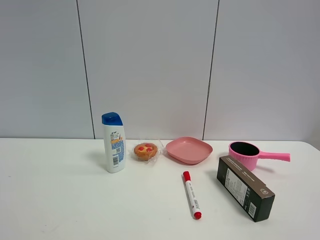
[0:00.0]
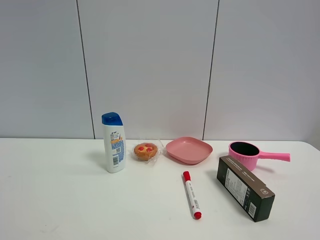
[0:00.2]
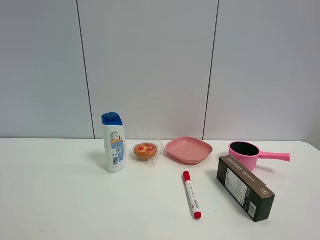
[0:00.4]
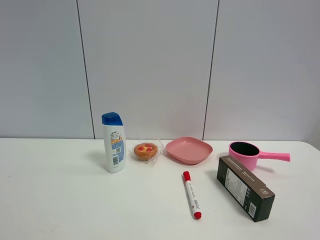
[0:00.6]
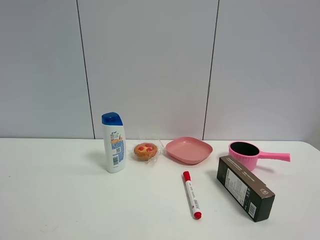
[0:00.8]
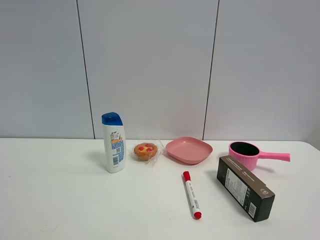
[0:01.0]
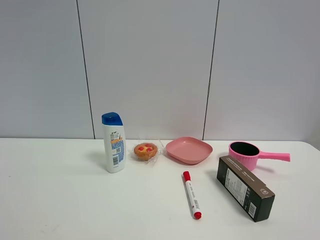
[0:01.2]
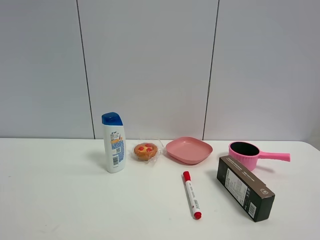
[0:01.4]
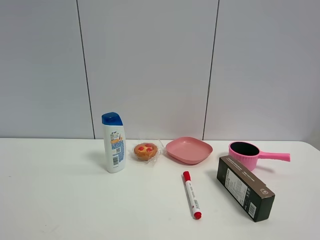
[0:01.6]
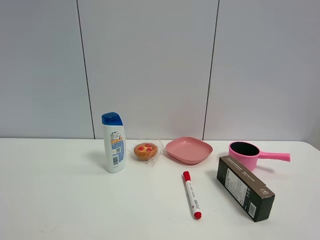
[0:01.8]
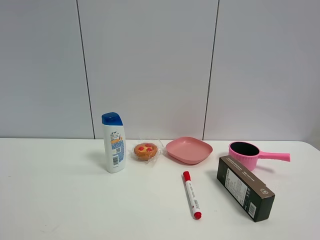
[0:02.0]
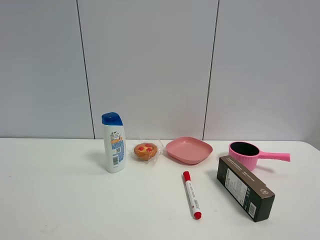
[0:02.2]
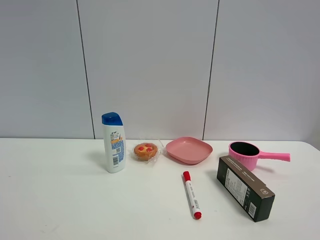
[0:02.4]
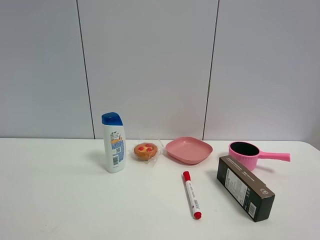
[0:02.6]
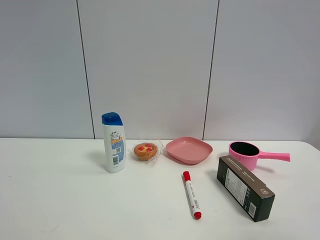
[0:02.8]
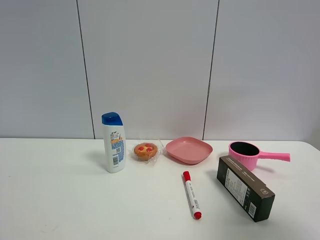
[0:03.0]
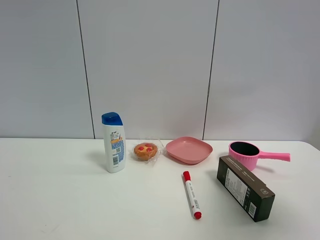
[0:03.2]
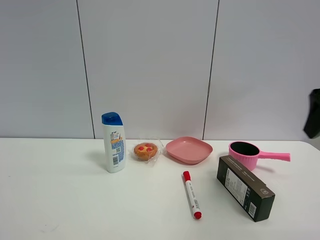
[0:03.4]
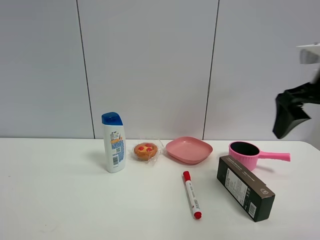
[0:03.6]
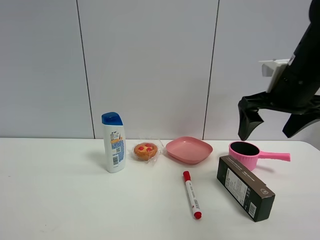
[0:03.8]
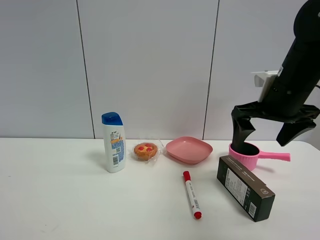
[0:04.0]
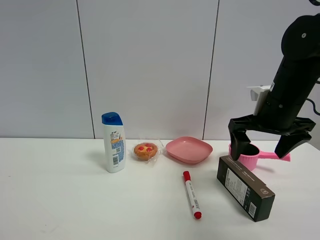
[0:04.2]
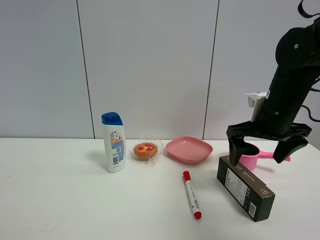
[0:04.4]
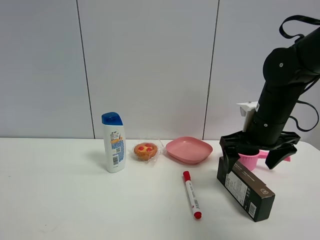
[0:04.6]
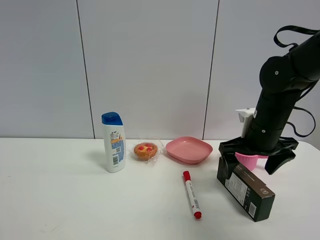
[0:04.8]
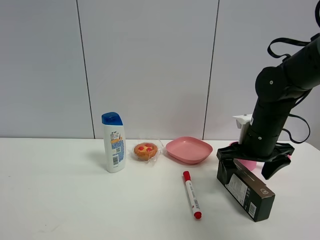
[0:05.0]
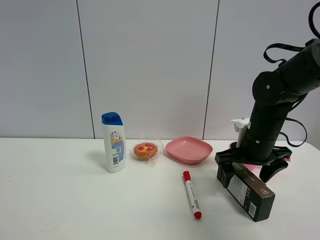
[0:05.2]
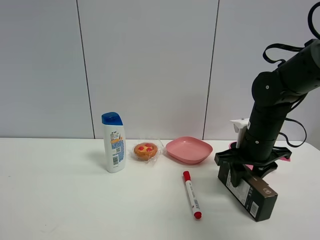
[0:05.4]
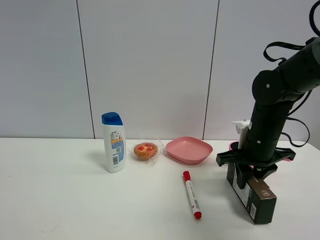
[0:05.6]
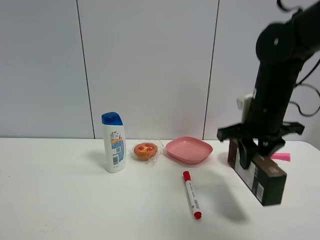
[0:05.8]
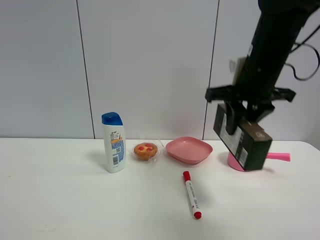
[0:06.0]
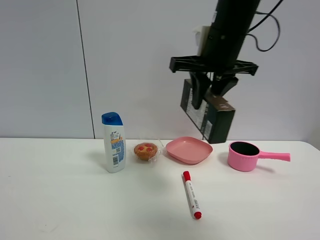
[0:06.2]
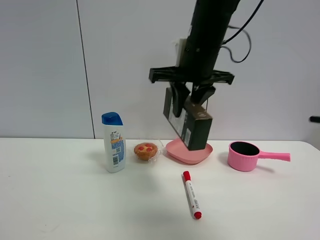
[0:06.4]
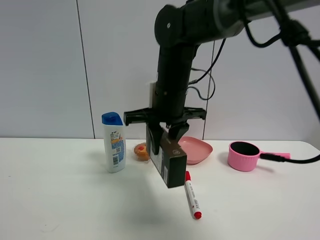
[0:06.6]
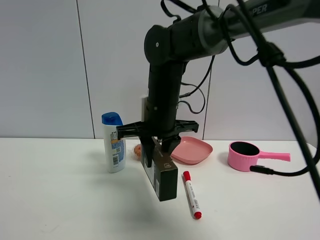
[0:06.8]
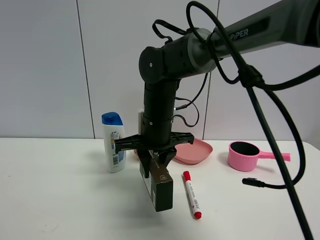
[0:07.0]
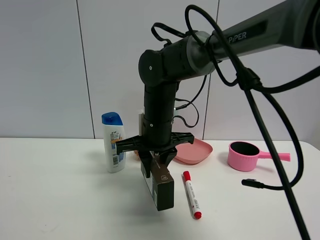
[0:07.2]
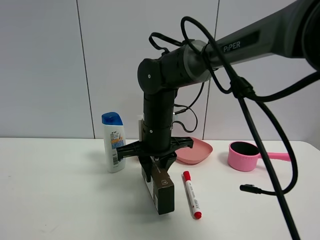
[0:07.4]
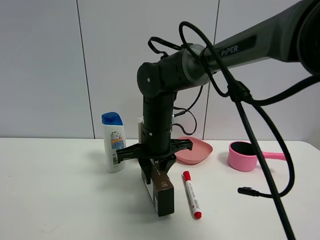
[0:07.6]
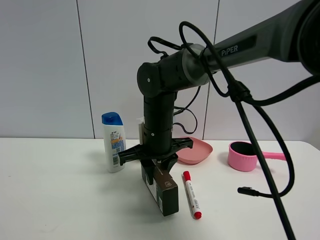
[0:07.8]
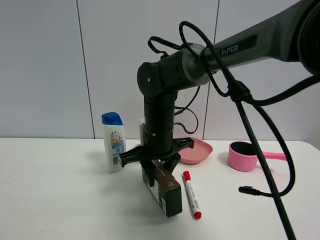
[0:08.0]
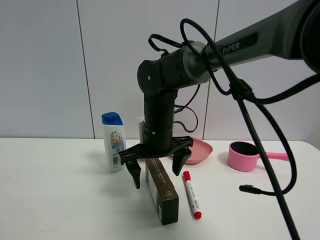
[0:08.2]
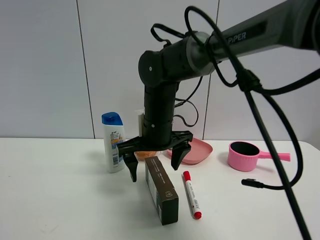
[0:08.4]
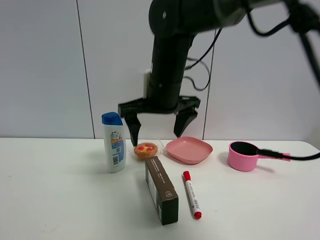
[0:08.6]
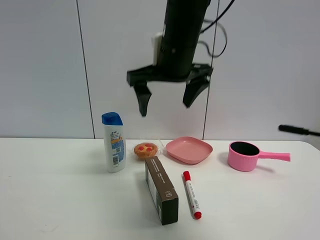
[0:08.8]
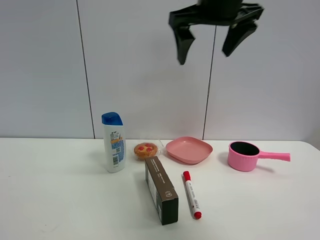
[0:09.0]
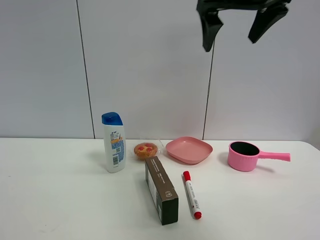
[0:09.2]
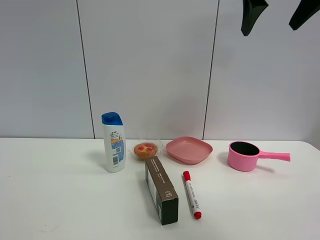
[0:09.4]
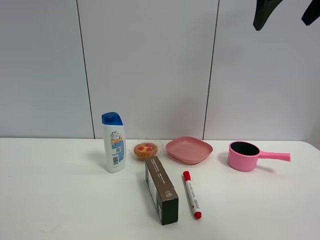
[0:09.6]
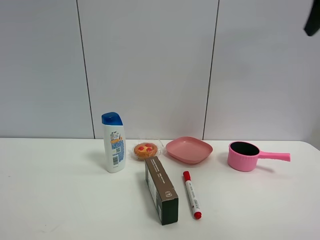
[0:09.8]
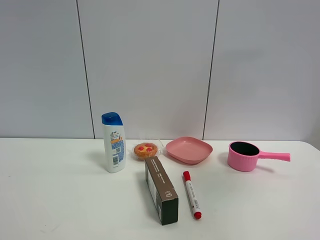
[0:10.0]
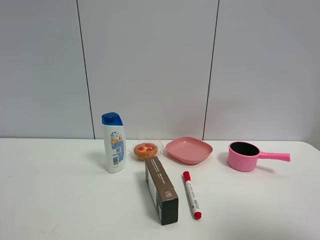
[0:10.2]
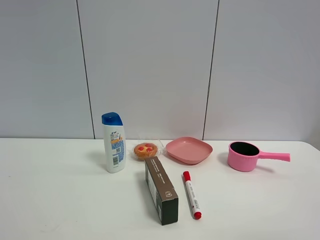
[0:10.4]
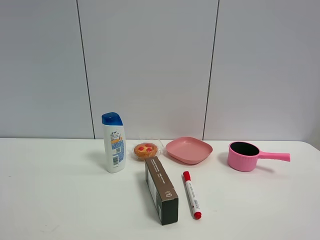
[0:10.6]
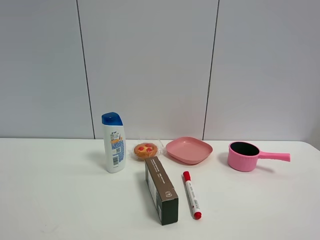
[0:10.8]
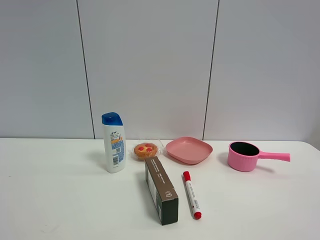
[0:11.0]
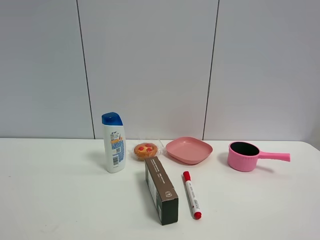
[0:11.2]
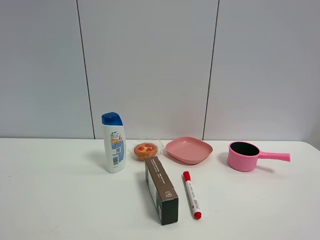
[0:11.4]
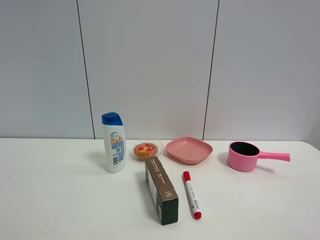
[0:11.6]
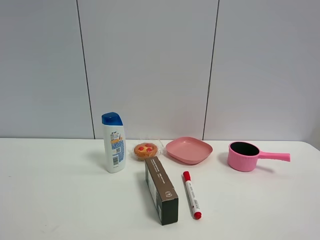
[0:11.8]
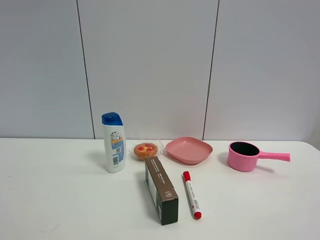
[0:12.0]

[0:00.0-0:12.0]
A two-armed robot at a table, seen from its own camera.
Task of the whole recording: the gripper move the object.
Step, 0:00.0 to 0:05.4: Grasp the brown box with the right gripper.
Step, 0:05.6 to 0:08.0: Place the brown box on the table with the right gripper.
0:00.0 to 0:01.6: Neither gripper changes place.
0:01.6 to 0:03.0: The right gripper moves forward and upward, roughly 15 cm.
0:03.0 to 0:04.4: The right gripper moves forward, downward and to the left, roughly 30 cm.
0:04.4 to 0:06.0: The right gripper heads upward and to the left, covering roughly 10 cm, and closes its fingers.
0:06.0 to 0:07.6: The right gripper travels to the left and downward by approximately 20 cm.
0:07.6 to 0:09.0: The right gripper goes about 25 cm upward, and opens up.
0:09.0 to 0:10.4: The right gripper moves backward and to the right, some 40 cm.

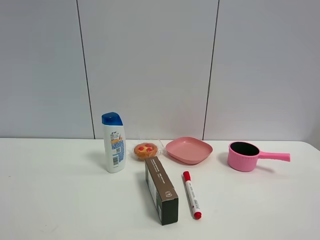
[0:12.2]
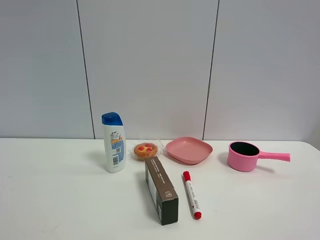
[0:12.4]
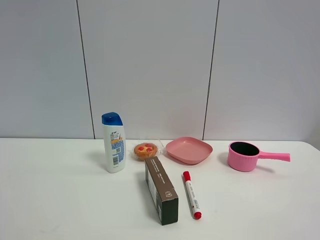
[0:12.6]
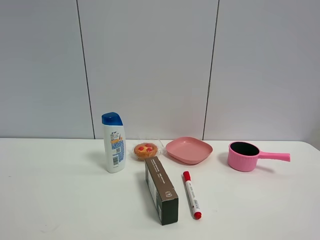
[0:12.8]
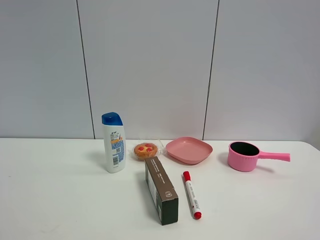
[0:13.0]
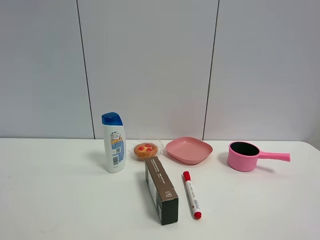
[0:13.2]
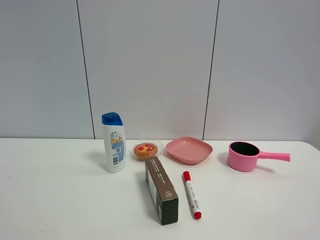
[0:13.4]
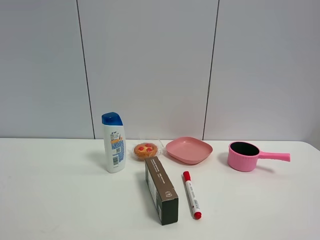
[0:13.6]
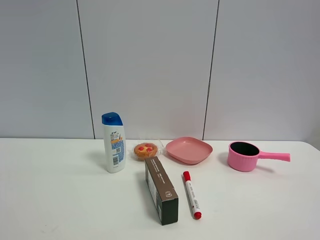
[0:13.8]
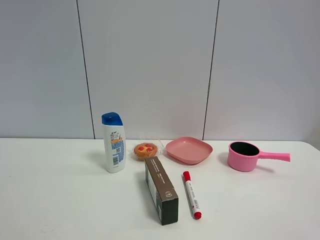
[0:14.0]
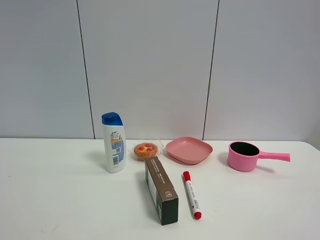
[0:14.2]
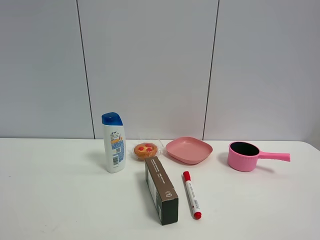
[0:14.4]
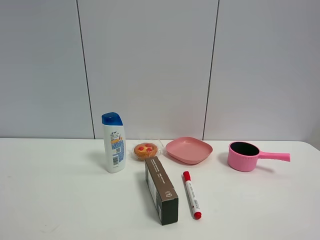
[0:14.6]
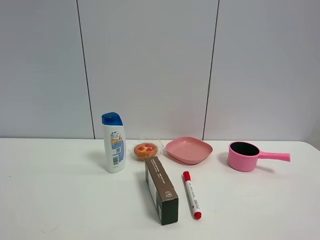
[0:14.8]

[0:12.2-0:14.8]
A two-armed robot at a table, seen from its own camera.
Task of the whole recording: the gripper move the object.
0:12.2 to 0:14.8: Neither gripper changes place.

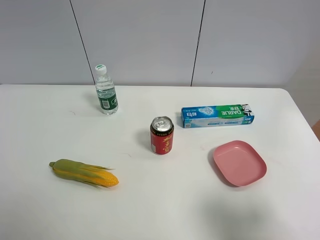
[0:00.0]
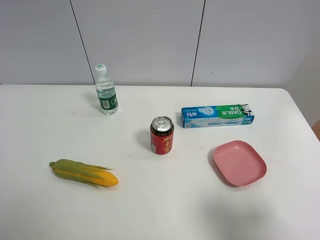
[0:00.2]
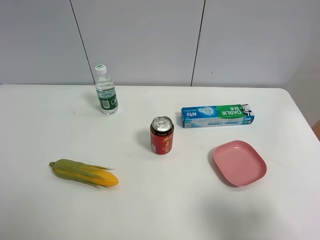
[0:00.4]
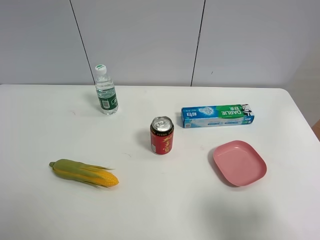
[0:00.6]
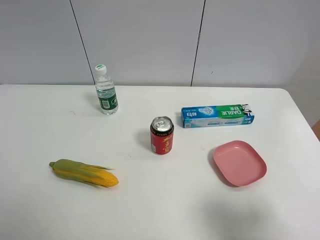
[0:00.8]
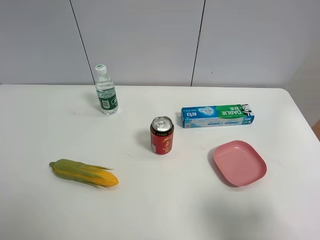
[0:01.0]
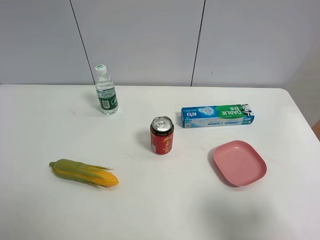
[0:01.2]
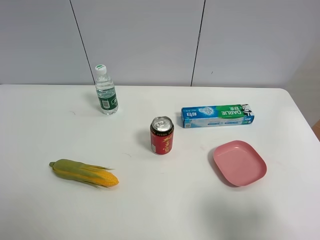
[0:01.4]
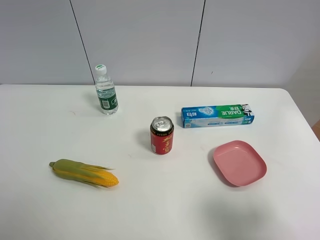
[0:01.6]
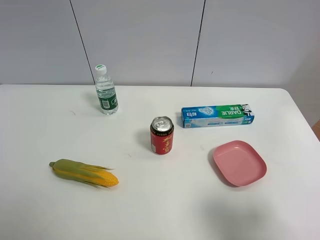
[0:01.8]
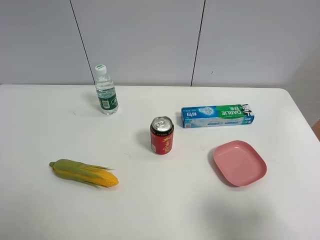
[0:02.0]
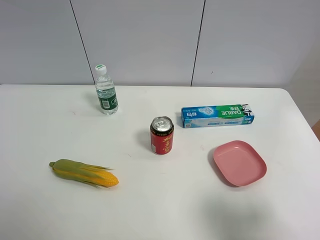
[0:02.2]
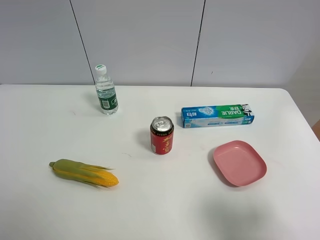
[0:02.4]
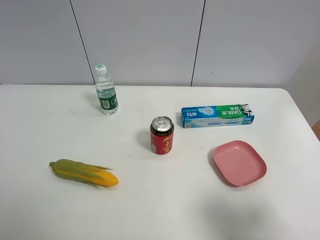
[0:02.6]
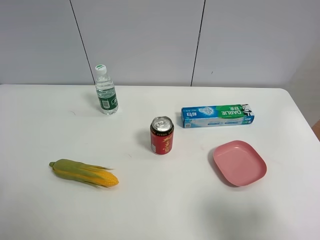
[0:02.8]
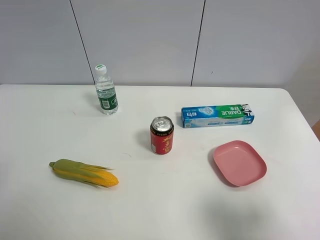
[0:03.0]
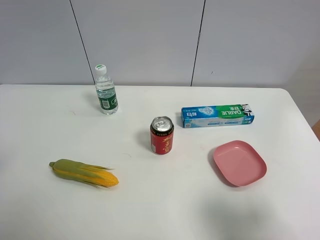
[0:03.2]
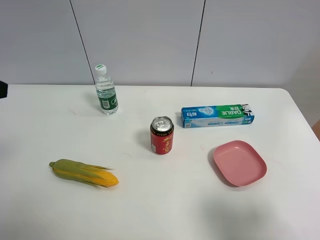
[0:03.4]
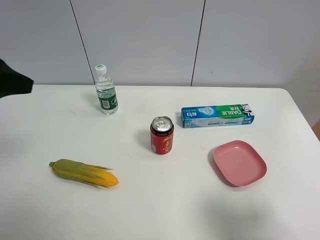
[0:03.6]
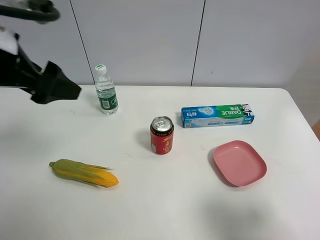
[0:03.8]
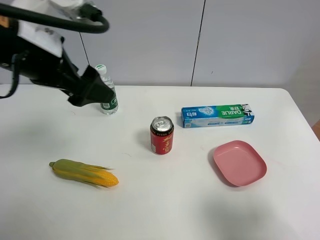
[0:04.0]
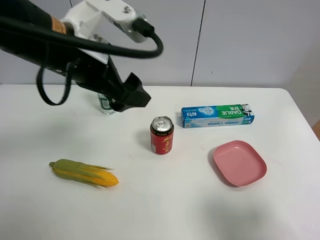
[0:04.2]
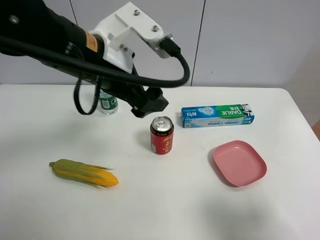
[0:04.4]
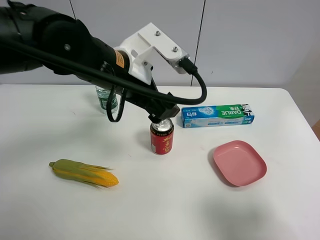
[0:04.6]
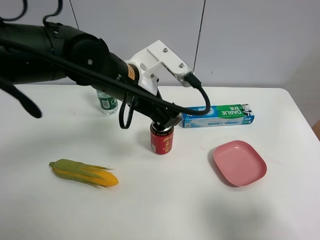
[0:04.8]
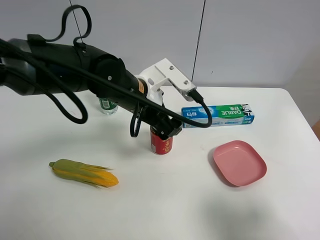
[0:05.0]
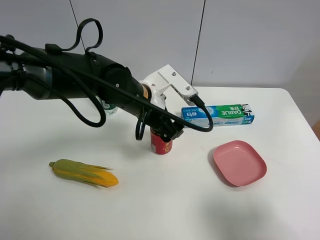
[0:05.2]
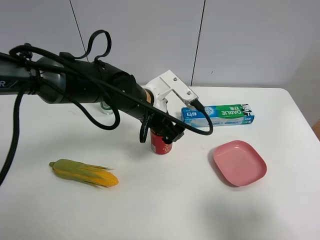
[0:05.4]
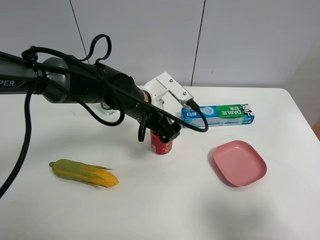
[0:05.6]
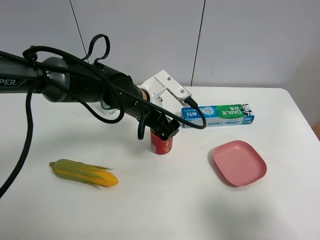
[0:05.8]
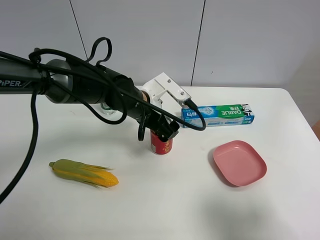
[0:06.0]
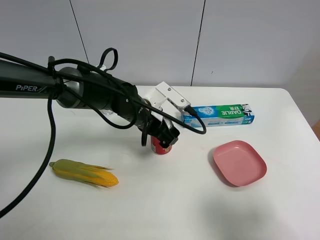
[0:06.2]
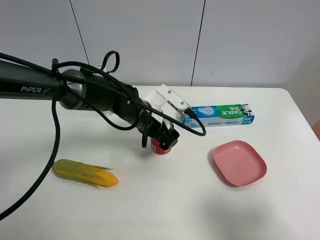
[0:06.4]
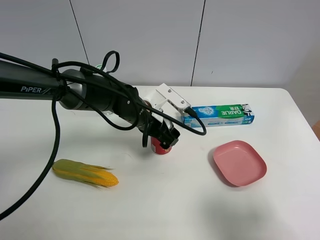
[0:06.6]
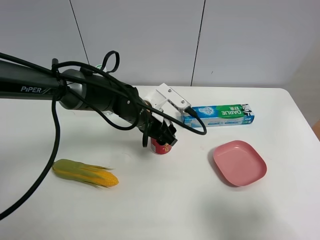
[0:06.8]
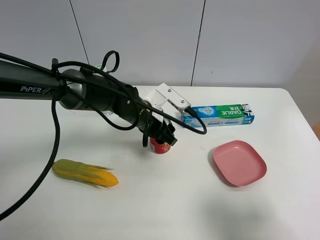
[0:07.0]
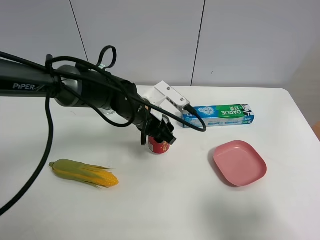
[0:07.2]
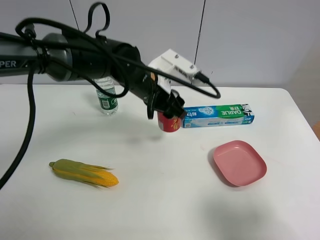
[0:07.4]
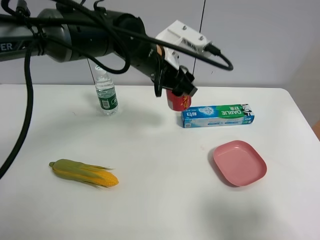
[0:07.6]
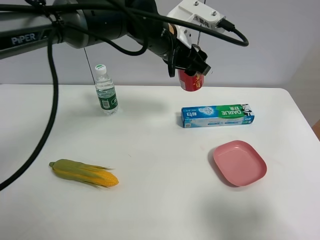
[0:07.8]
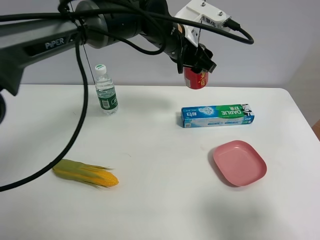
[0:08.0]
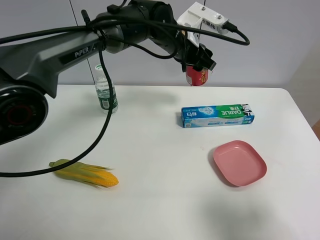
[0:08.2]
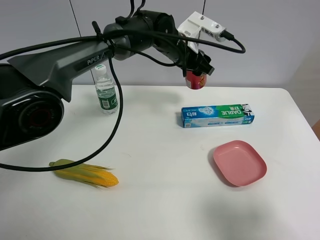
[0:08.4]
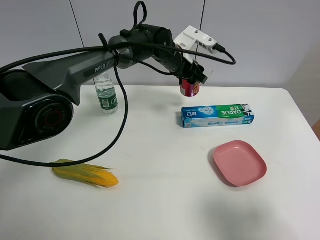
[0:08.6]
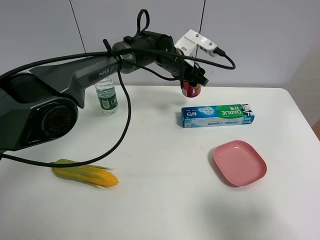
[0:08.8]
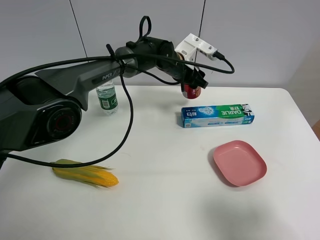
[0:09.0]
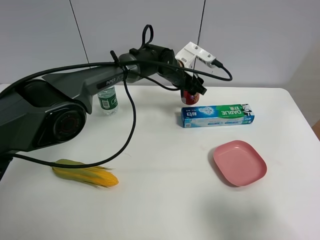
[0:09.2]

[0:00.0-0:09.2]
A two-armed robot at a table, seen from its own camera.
Task of the whole recording: the gripper move the object.
Step, 0:00.0 to 0:06.8: Grasp the Jia Duo Bao with the left gripper.
0:00.0 to 0:01.6: Neither gripper changes place.
0:03.0 to 0:04.6: The left gripper heads to the right and forward, covering approximately 30 cm.
0:04.6 to 0:06.2: The left gripper goes approximately 15 cm downward.
0:06.2 to 0:07.6: The left gripper moves upward, about 10 cm, and closes its fingers.
0:07.6 to 0:09.2: The left gripper heads forward and downward, covering some 15 cm.
